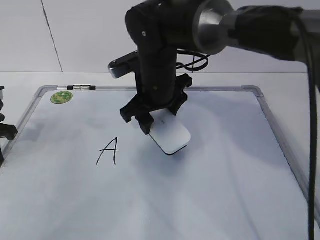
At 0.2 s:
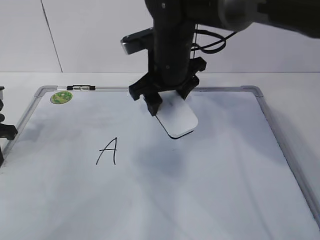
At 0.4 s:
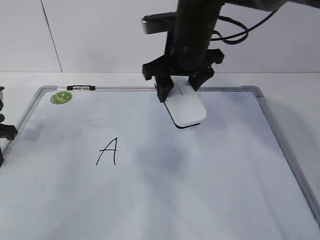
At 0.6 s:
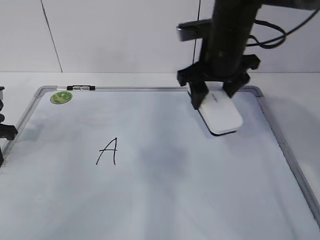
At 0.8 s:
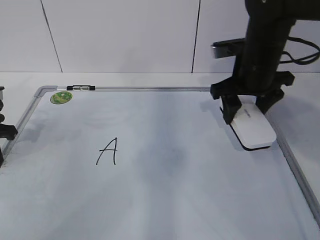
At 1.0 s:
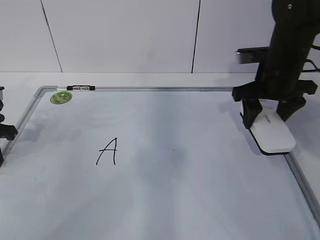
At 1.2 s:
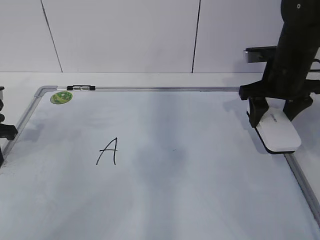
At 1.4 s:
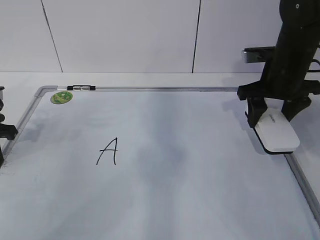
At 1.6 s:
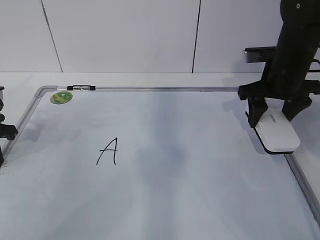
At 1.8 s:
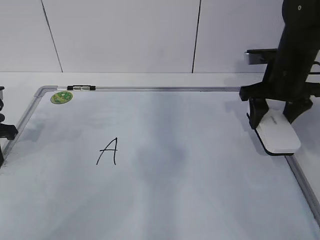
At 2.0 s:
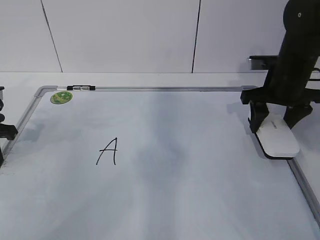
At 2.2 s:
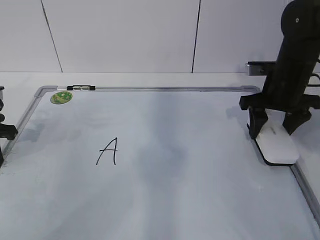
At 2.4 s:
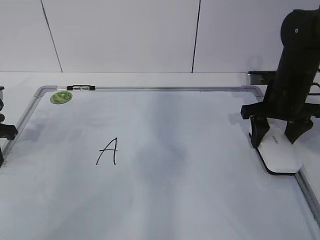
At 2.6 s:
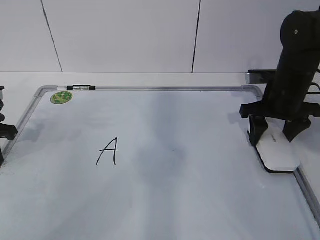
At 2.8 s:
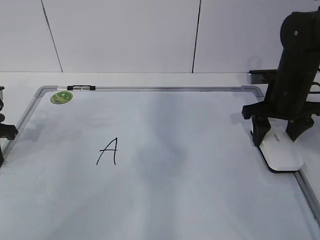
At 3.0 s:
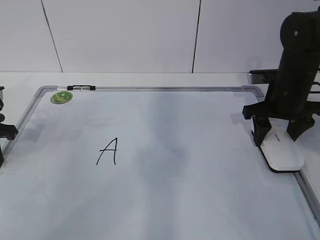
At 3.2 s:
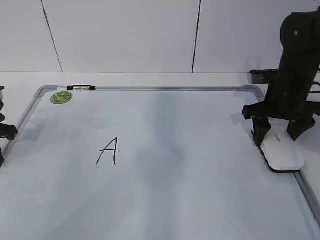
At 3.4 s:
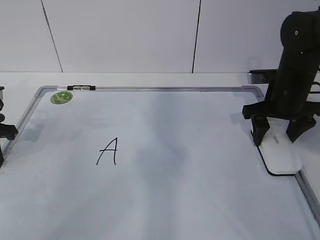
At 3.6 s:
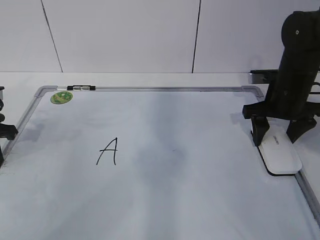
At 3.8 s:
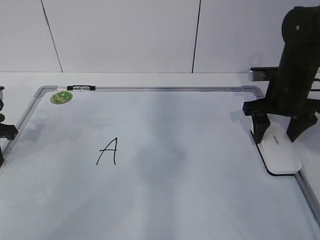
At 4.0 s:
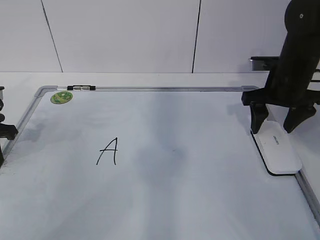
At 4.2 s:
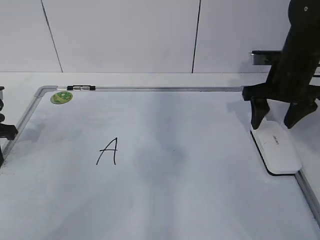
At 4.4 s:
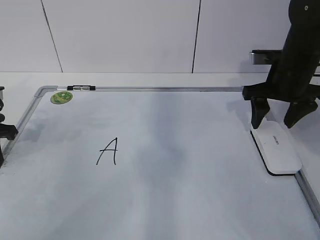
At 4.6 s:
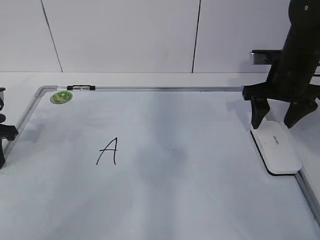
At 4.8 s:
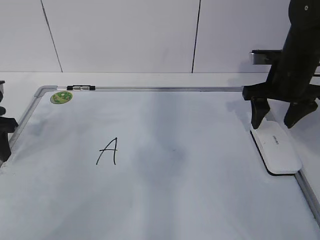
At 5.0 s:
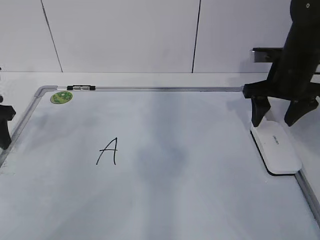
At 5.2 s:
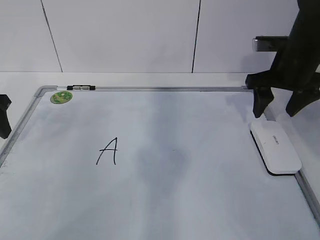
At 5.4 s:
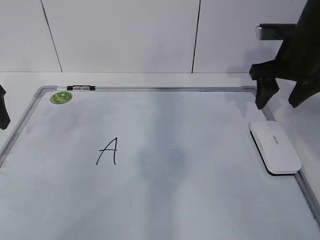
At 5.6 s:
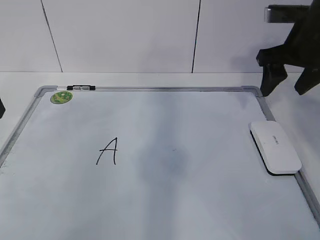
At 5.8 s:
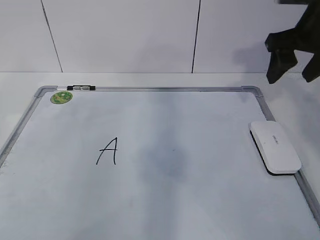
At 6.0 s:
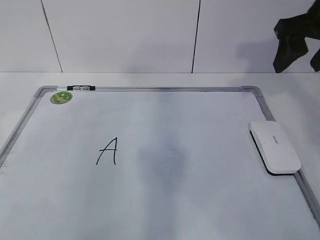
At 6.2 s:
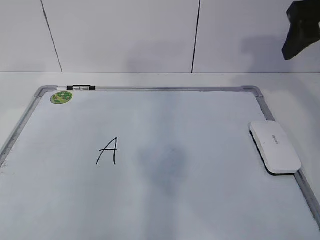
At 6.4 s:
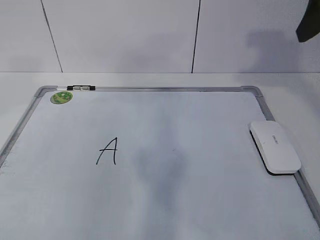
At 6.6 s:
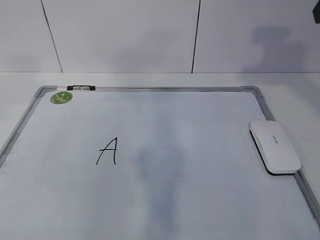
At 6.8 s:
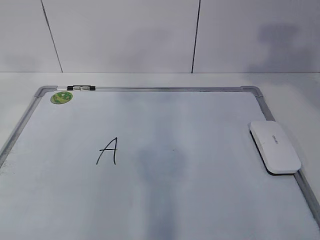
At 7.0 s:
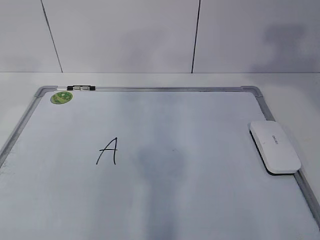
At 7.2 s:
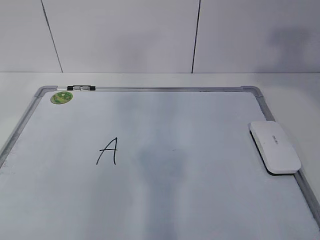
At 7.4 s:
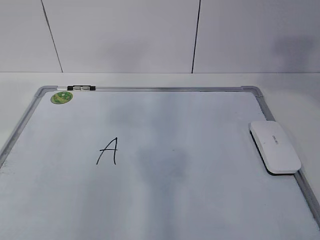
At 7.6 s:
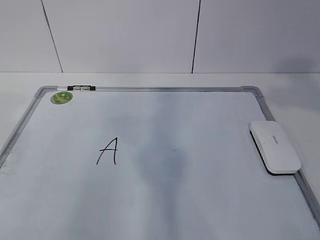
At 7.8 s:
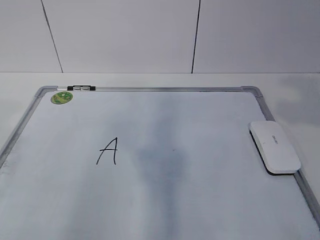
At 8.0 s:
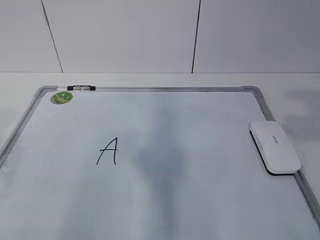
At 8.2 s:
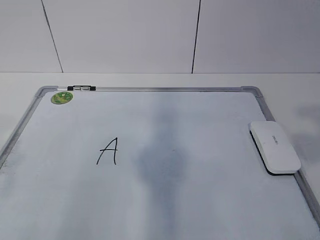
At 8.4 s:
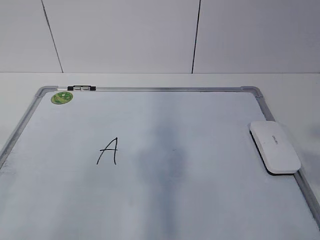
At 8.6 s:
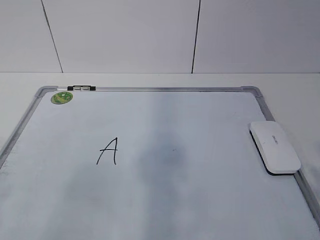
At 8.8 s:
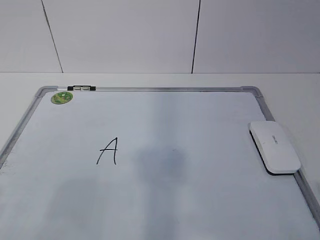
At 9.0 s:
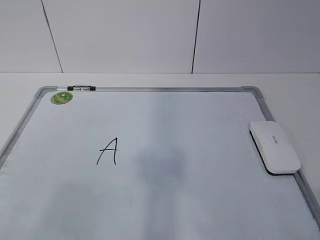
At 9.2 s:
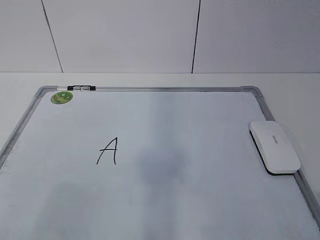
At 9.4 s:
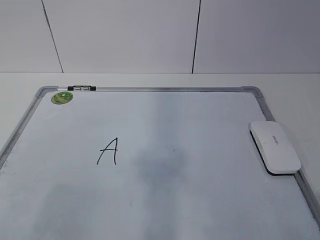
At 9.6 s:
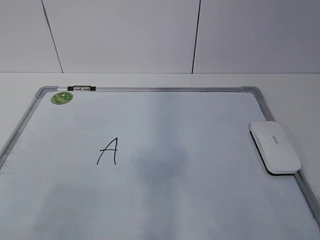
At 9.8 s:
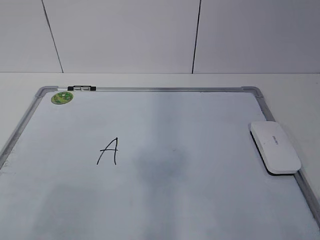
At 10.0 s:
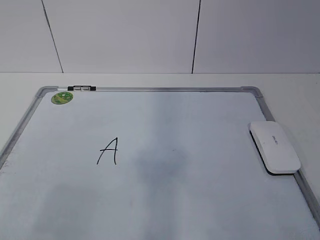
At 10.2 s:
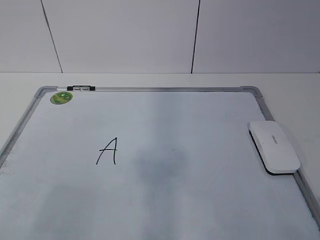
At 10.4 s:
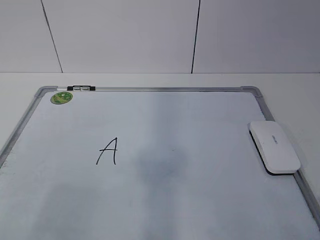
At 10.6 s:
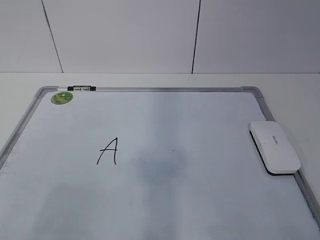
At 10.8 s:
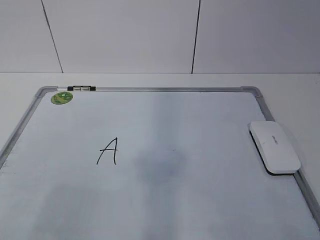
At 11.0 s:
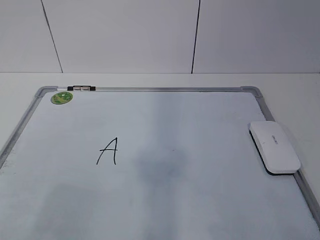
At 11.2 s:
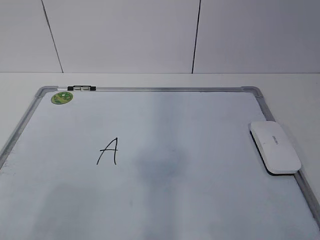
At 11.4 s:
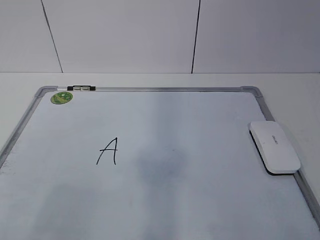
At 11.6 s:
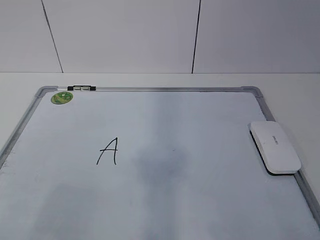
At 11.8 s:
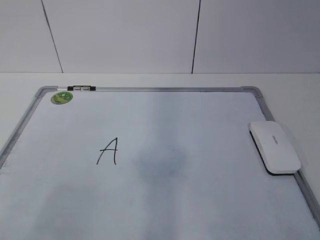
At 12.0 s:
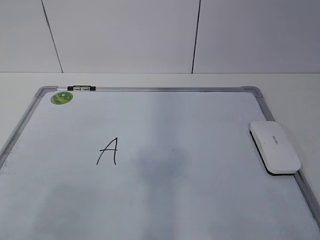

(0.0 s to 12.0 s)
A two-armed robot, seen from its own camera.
Task of the whole recording: pick up the eraser on the blackboard and erase the letter "a".
0.0 s - 1.6 s: The right gripper goes roughly 20 cm to the right.
1.6 s - 3.0 s: The grippers stay close to where they were, moving slightly.
3.0 s - 4.4 s: The right gripper opens its fingers.
4.4 s - 6.0 s: Both grippers move upward, about 15 cm. The left gripper opens.
6.0 s - 7.6 s: The right gripper shifts some 25 cm backward and upward.

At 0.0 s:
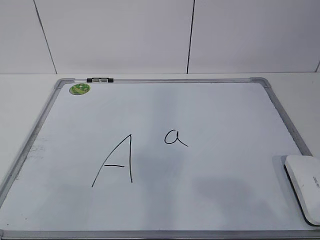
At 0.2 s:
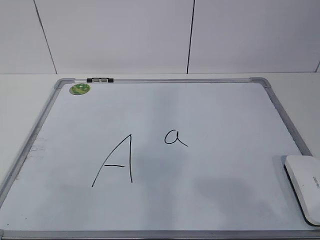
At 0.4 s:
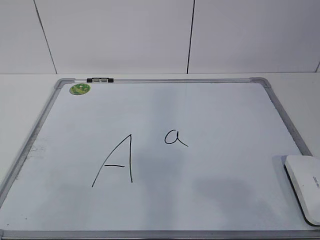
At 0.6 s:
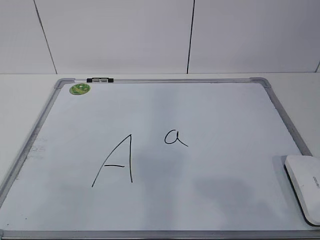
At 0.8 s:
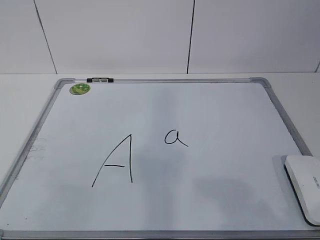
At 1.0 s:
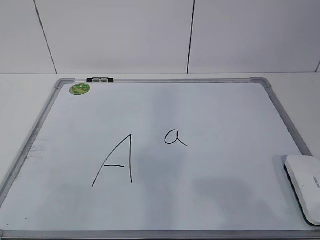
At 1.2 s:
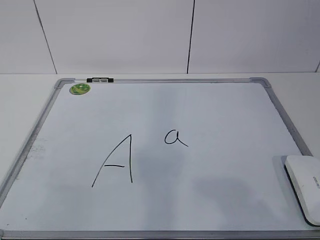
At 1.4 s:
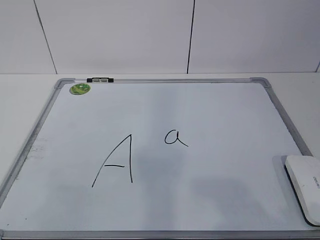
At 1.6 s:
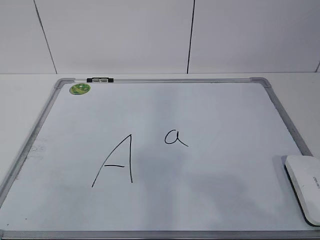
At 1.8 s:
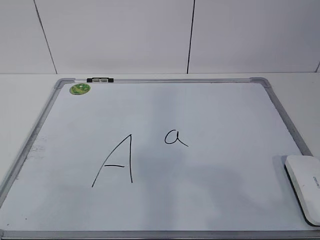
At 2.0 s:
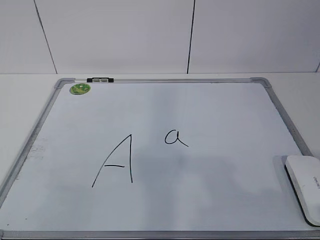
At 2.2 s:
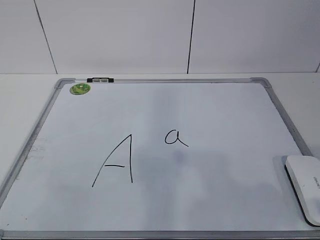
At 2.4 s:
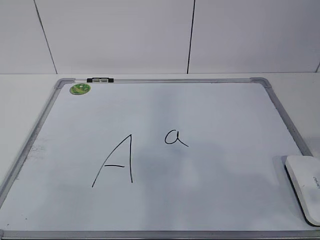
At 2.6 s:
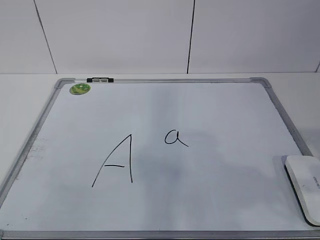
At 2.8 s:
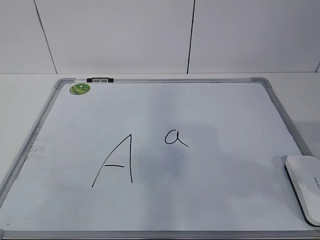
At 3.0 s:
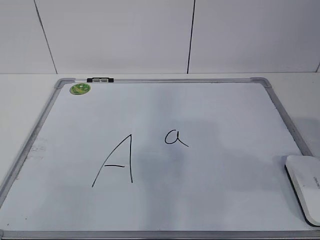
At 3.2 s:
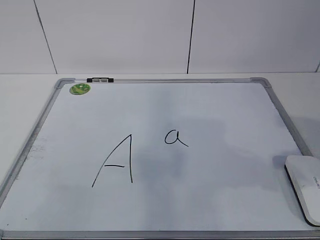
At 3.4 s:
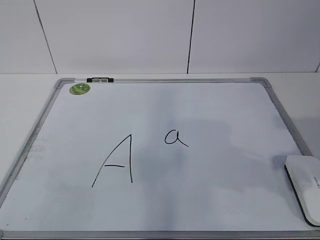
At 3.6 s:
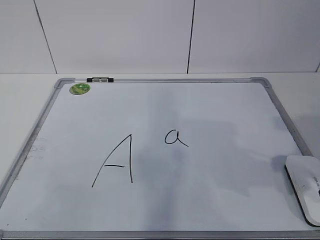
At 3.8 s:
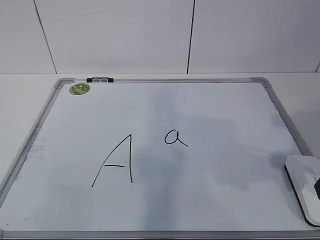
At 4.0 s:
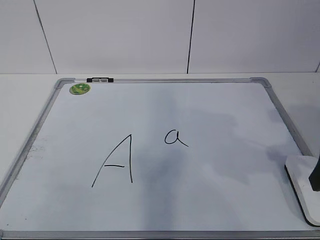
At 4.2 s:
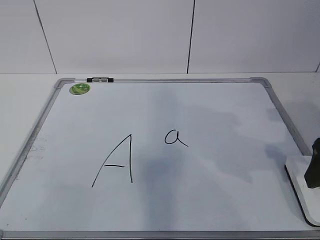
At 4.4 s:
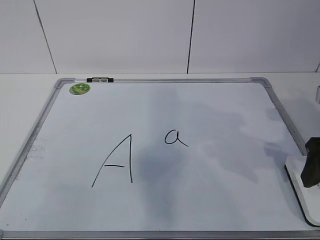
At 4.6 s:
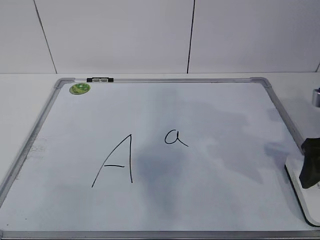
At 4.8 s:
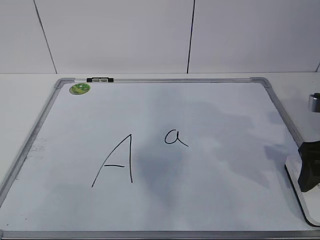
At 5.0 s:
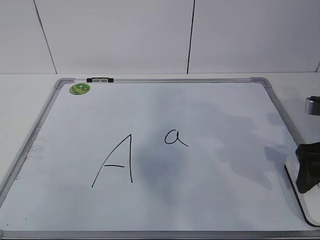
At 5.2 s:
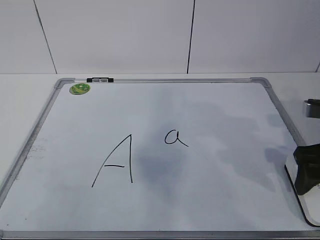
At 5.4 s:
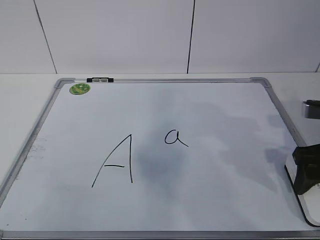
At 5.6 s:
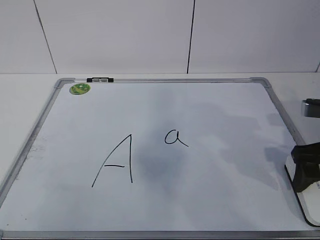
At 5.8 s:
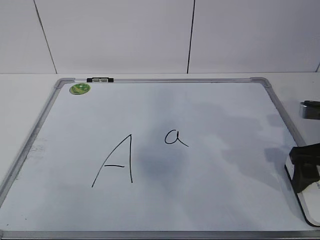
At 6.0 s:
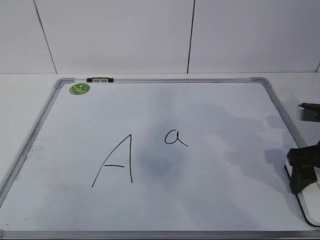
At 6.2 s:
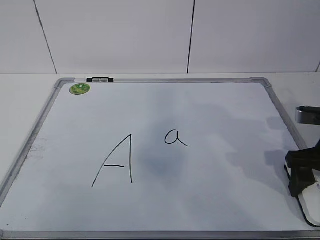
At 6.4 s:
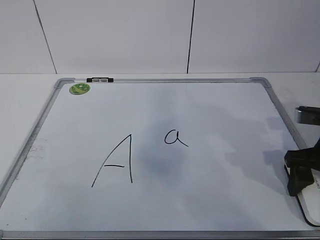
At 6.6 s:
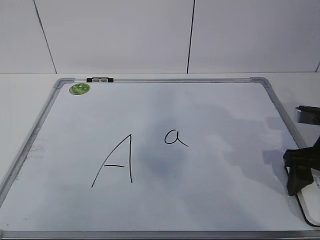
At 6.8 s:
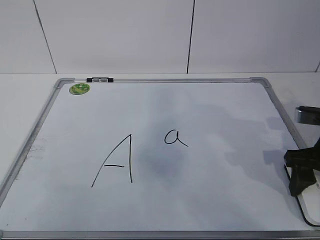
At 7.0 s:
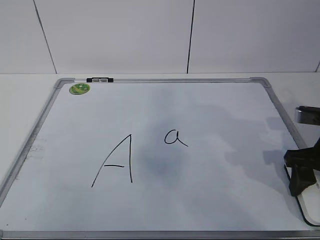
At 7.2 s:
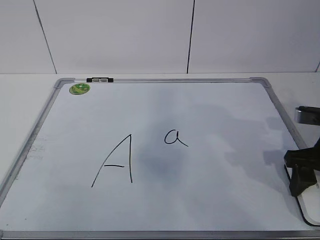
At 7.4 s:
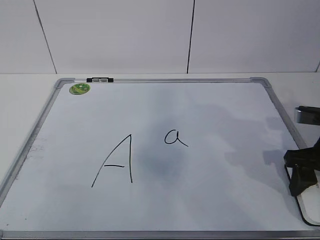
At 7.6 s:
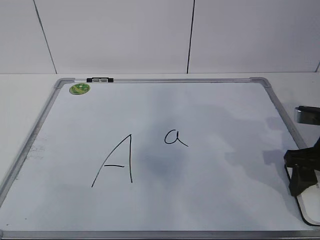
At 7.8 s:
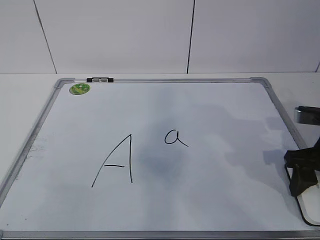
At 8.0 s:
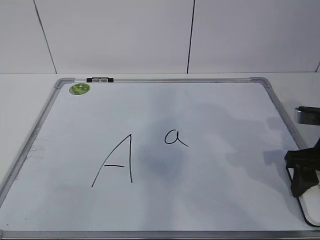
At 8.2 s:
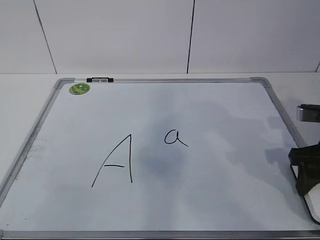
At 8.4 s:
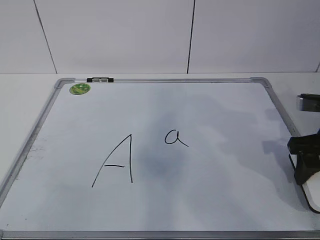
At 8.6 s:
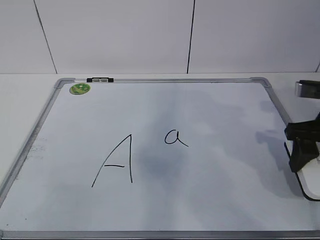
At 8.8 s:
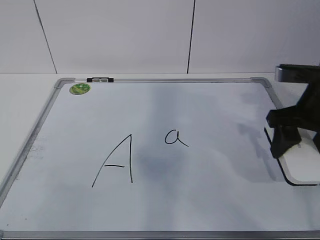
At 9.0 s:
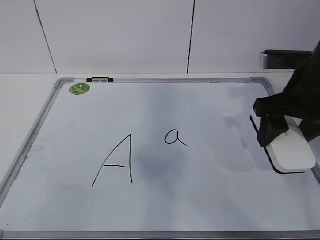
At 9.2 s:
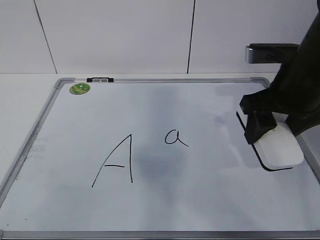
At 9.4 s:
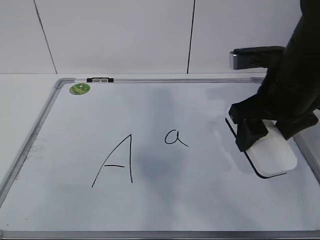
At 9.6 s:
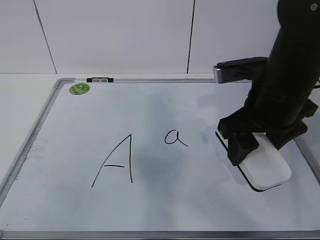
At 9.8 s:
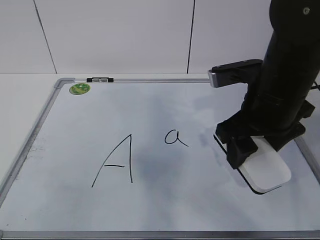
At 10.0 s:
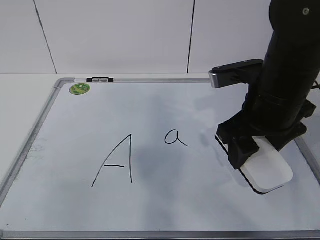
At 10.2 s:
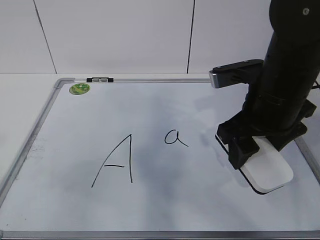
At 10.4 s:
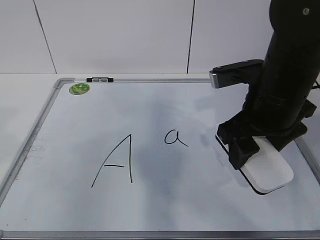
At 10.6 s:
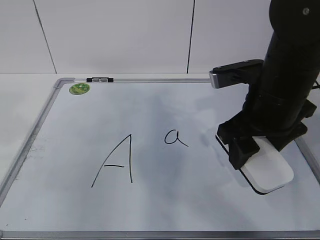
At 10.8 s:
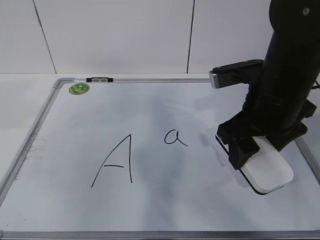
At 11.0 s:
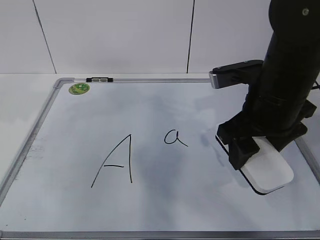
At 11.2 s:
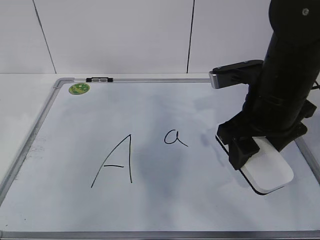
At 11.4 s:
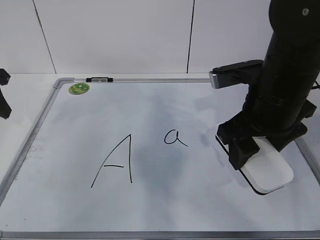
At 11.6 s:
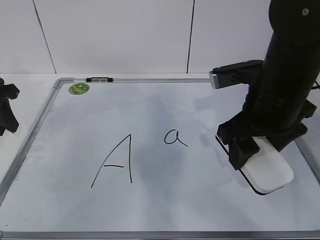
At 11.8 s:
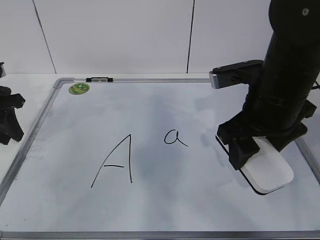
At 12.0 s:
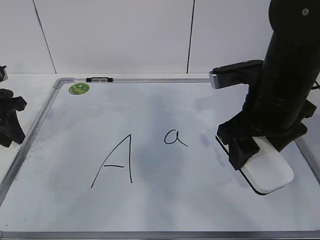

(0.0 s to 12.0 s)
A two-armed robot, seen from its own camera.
Task of the whole recording: pick up the eraser on the blackboard and erase the letter "a".
3.0 s - 4.4 s: The right gripper goes some 10 cm forward and downward, and opens its fingers.
4.4 s - 6.0 s: The right gripper changes place by roughly 5 cm.
6.0 s - 7.6 s: The right gripper closes up.
7.6 s - 9.0 s: The right gripper heads upward and to the left, covering roughly 10 cm.
9.0 s - 10.4 s: The right gripper heads to the left, covering some 5 cm.
10.4 s - 12.0 s: The left gripper goes about 30 cm forward and downward.
